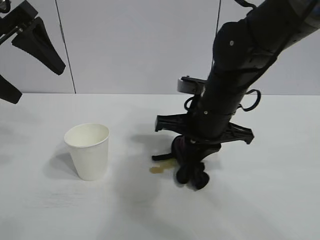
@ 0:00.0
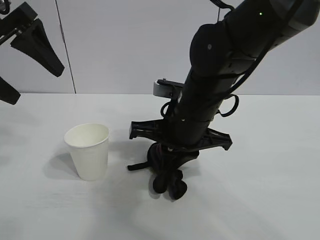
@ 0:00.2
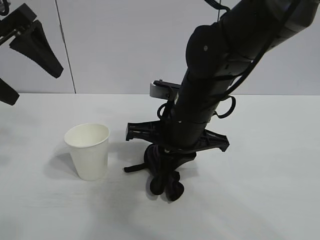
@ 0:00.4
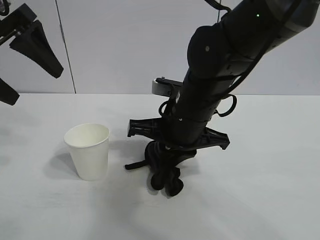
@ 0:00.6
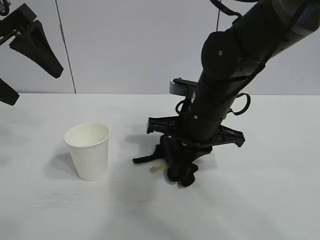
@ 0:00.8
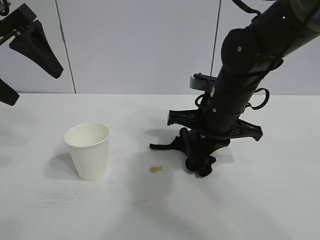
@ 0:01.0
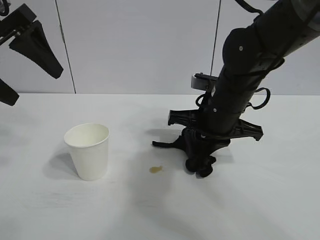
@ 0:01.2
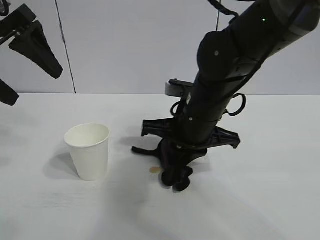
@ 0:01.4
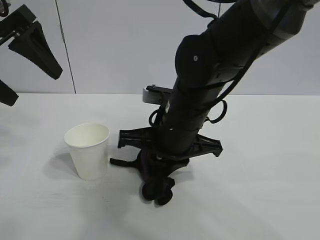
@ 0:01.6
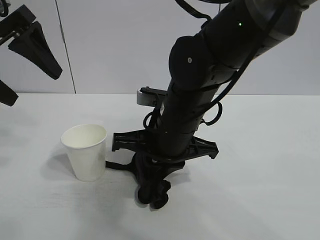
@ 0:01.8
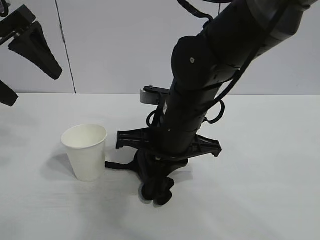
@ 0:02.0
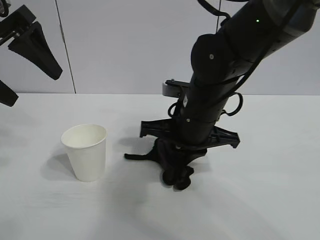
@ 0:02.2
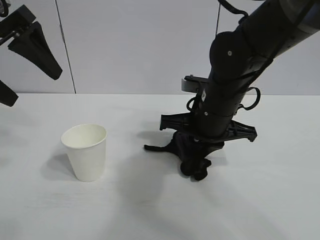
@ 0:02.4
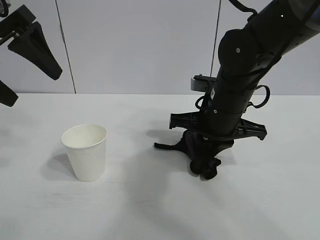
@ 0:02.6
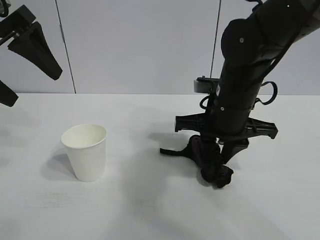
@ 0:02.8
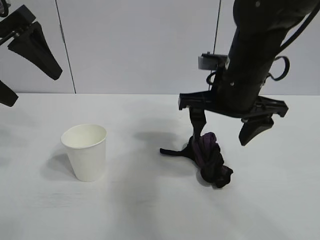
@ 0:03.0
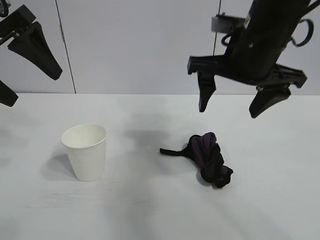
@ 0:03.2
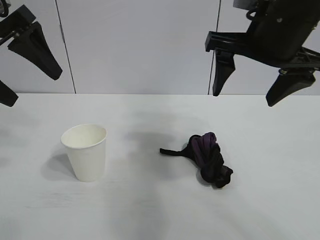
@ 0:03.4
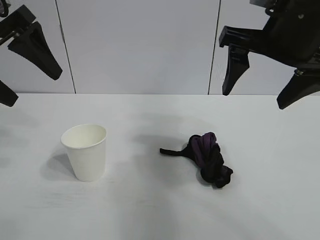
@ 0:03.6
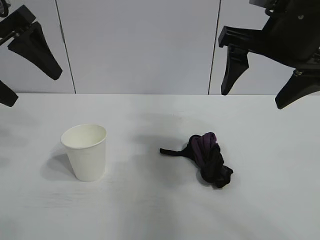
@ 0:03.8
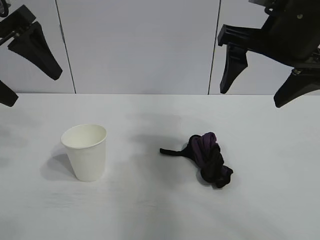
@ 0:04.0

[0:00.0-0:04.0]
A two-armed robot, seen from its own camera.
Task of the whole recording: the left gripper pick up the fallen cup and place it upright, the right gripper grasp the black rag and wipe the stain on the table, the right gripper put the black rag back in its original position.
Step, 0:00.0 to 0:02.6: Wipe the stains off the table with the rag with right gripper.
